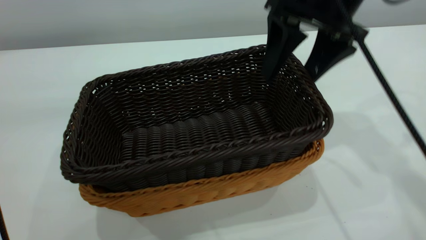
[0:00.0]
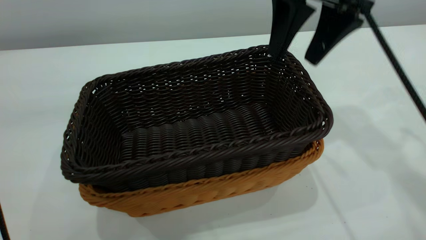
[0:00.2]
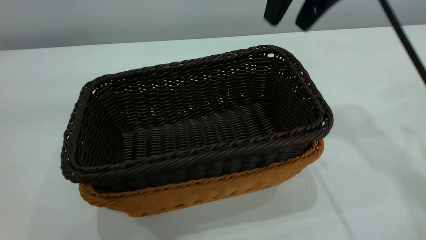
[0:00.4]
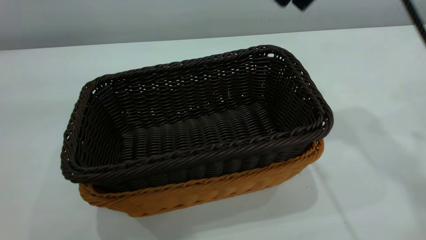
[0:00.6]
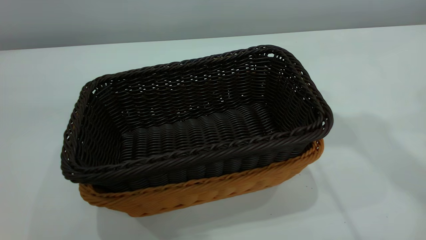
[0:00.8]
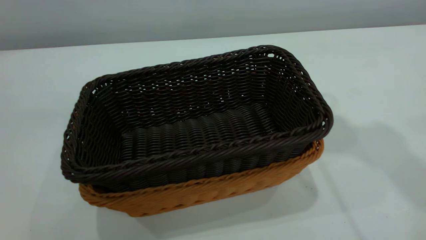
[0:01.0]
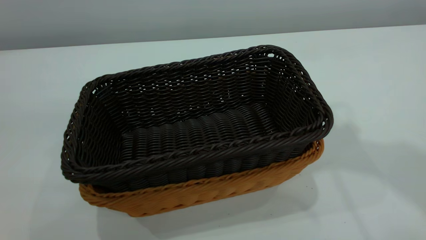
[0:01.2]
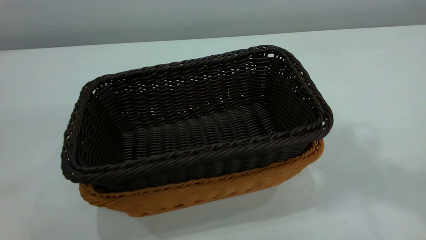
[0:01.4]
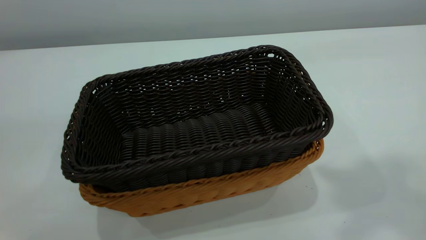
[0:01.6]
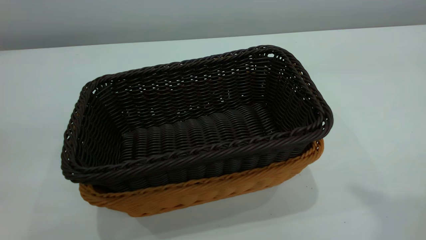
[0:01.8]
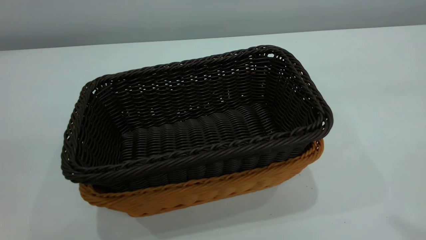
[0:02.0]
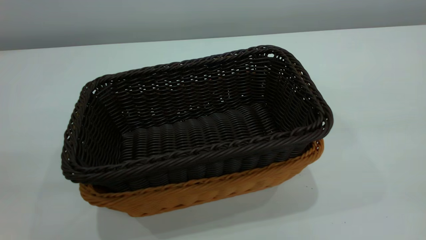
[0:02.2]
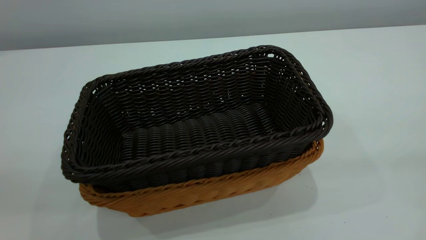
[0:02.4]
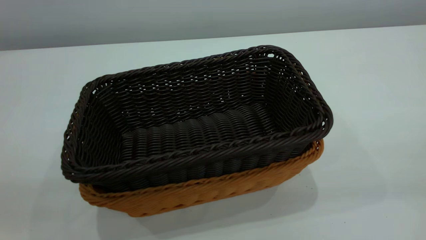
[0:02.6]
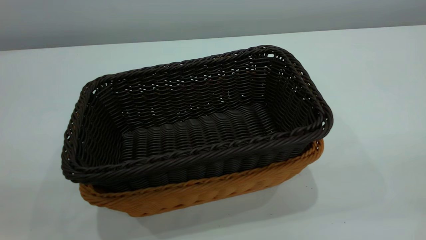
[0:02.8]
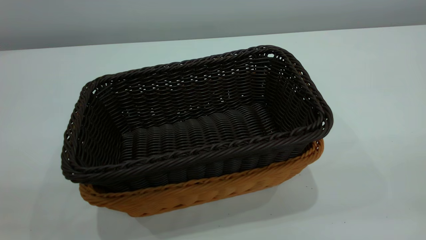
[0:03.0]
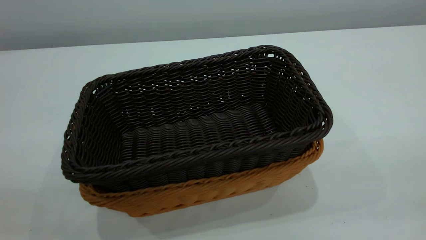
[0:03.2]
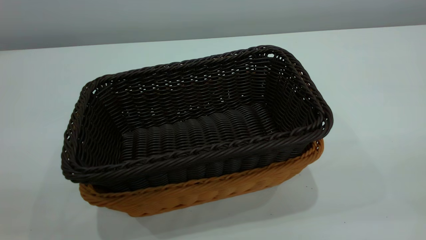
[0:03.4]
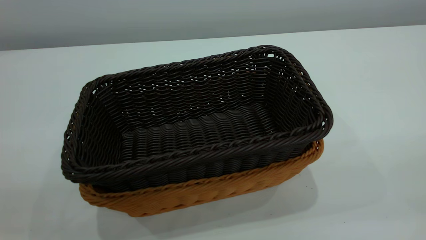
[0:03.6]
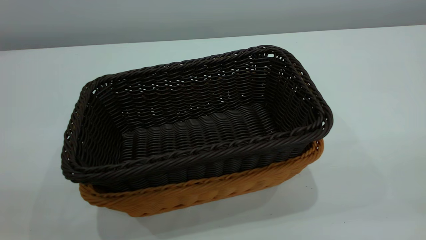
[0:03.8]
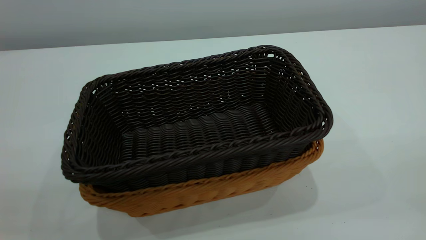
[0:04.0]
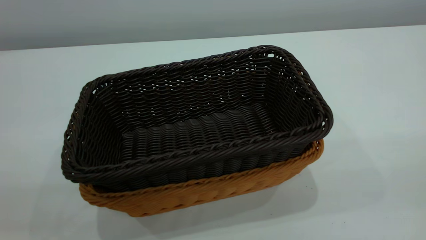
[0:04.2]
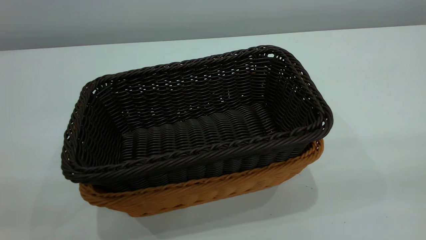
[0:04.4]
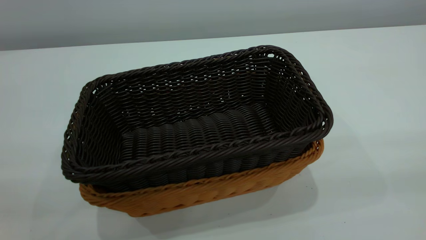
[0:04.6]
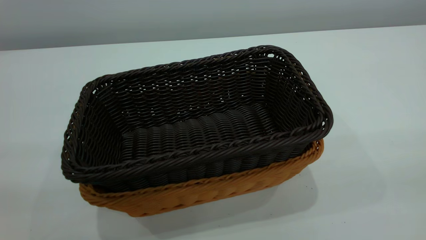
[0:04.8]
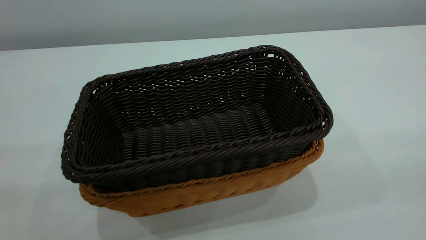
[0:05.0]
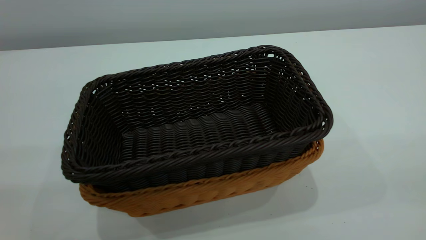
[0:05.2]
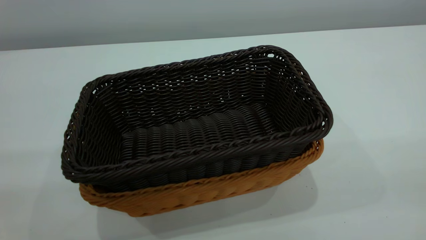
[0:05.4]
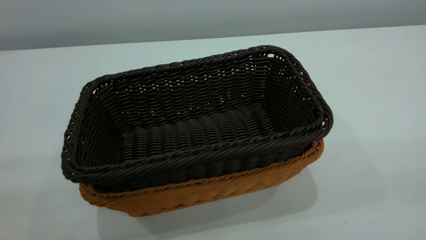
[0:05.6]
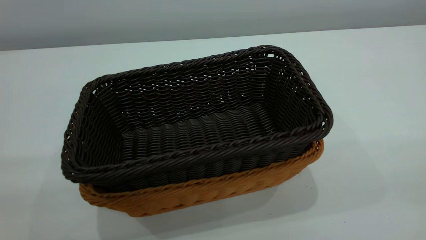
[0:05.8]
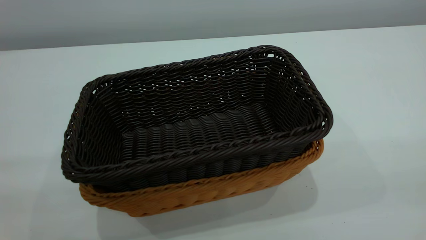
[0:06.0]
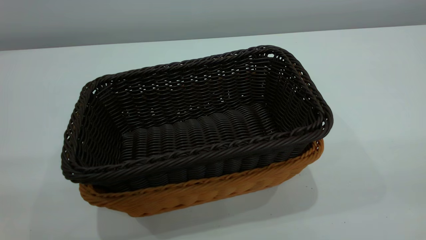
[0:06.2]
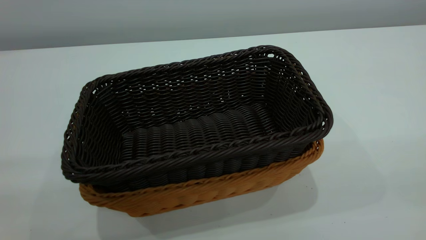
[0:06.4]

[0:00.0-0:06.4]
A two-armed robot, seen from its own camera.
Task of the whole recording: the left gripper grasp the brown basket and place it in the center of the table, the right gripper grasp the black basket and place it inside the brown one.
0:00.0 to 0:01.6: The right gripper is displaced upward and backward by approximately 30 cm, and closes its fingers. The left gripper travels to the left and backward by approximately 15 cm, and closes.

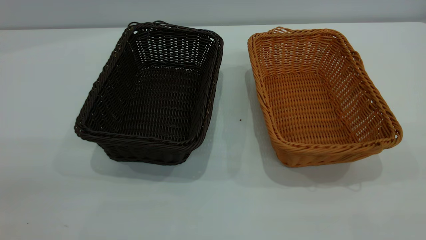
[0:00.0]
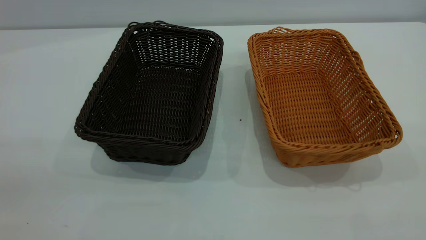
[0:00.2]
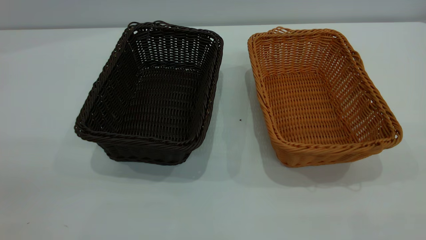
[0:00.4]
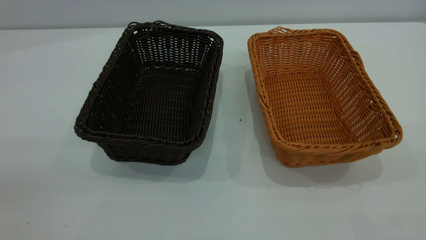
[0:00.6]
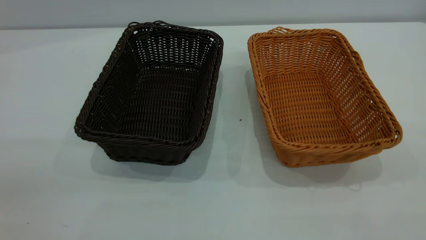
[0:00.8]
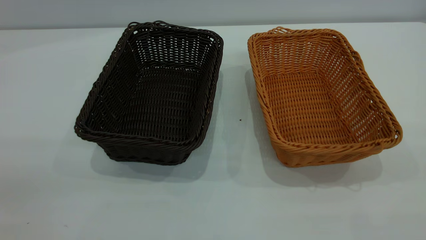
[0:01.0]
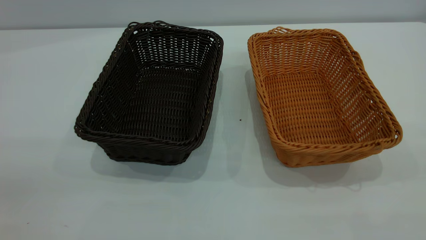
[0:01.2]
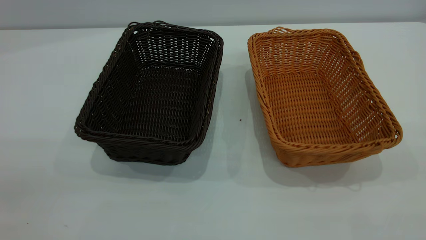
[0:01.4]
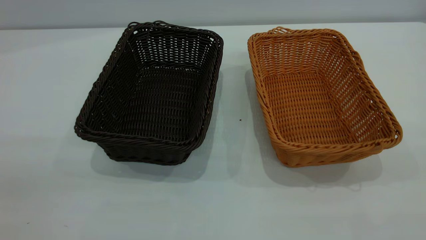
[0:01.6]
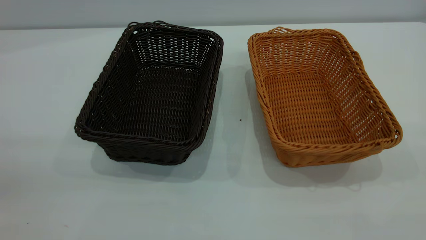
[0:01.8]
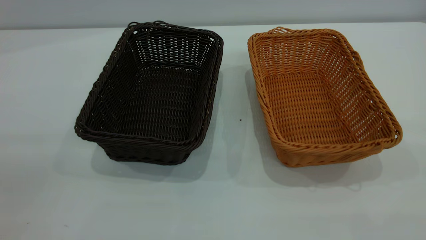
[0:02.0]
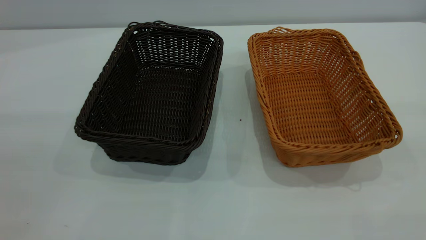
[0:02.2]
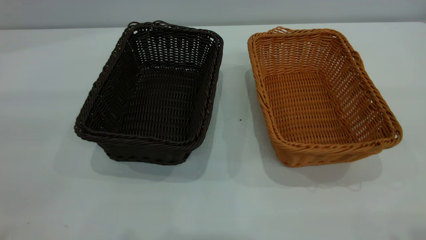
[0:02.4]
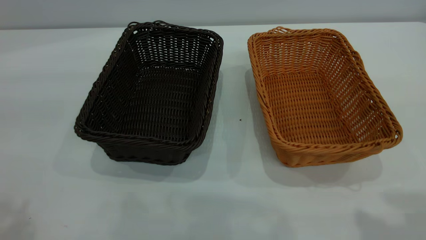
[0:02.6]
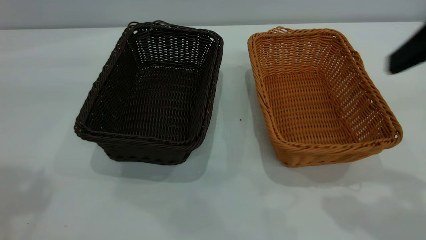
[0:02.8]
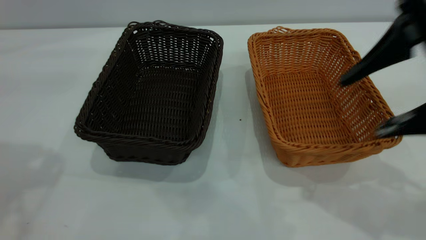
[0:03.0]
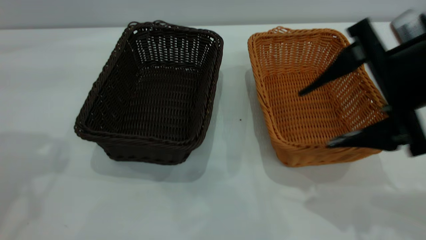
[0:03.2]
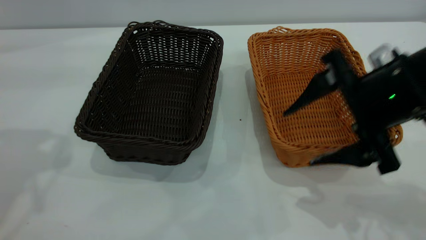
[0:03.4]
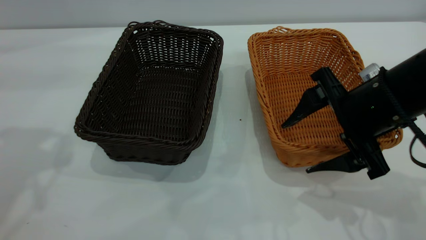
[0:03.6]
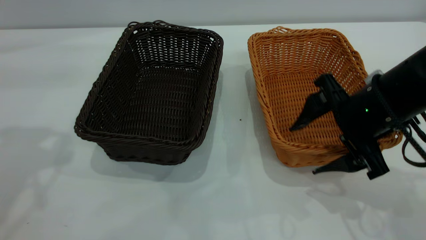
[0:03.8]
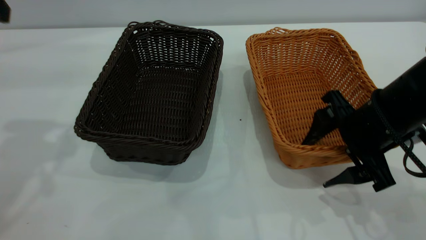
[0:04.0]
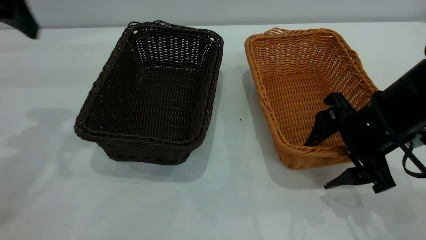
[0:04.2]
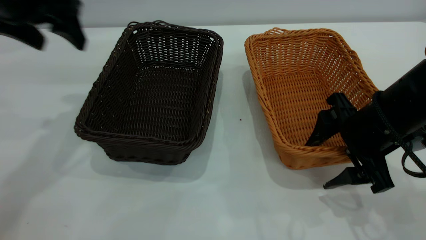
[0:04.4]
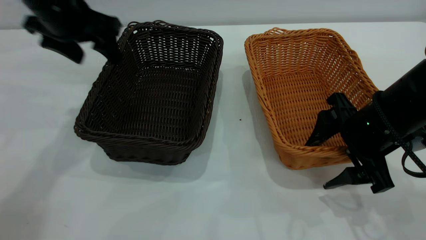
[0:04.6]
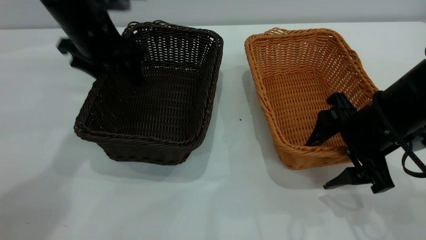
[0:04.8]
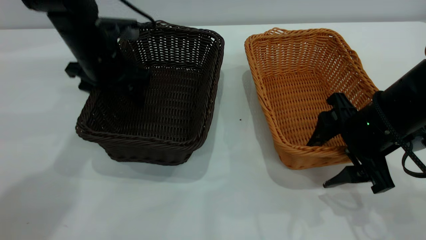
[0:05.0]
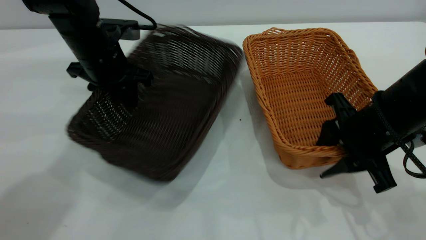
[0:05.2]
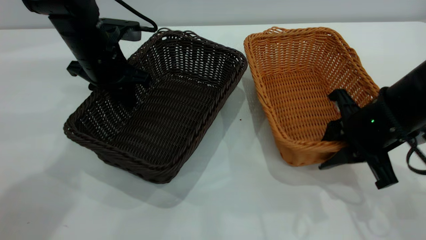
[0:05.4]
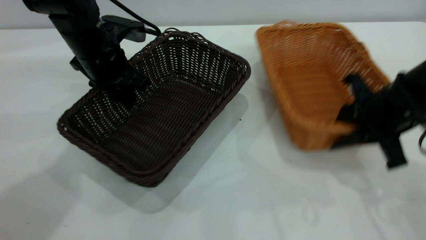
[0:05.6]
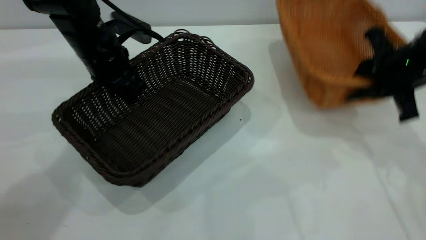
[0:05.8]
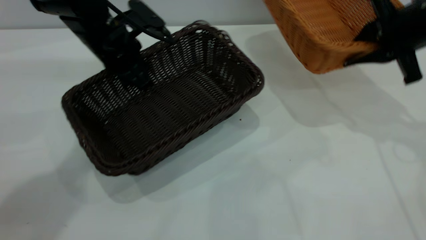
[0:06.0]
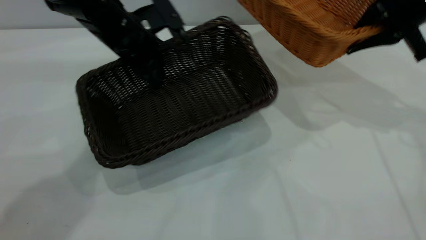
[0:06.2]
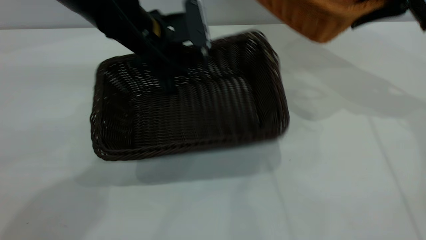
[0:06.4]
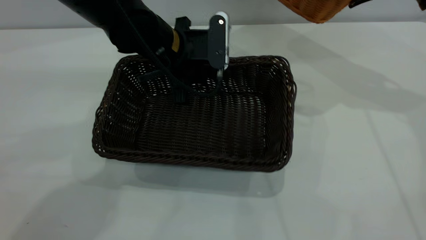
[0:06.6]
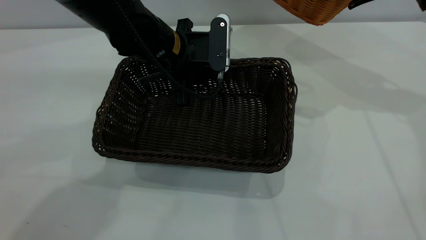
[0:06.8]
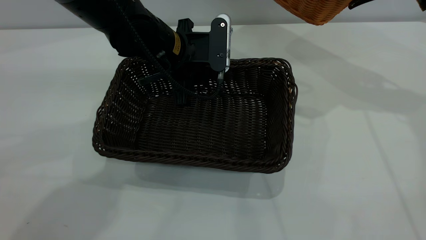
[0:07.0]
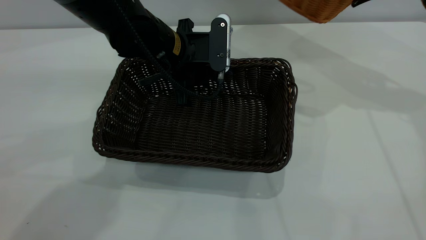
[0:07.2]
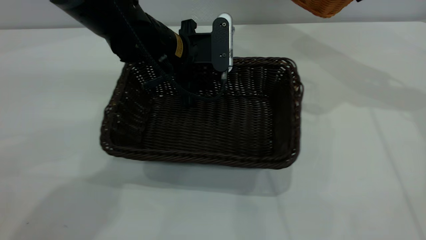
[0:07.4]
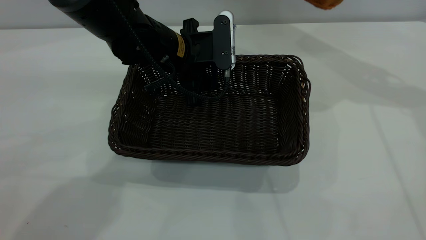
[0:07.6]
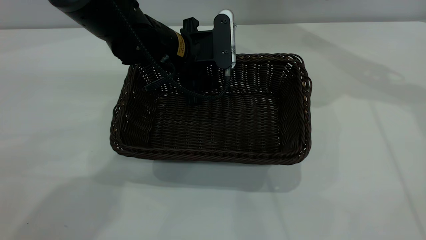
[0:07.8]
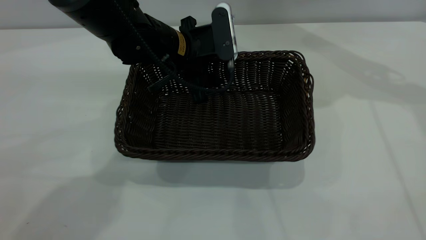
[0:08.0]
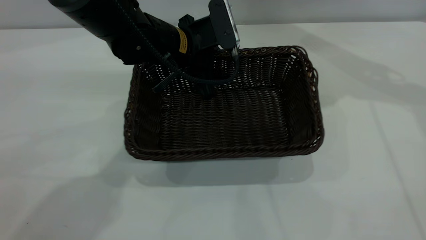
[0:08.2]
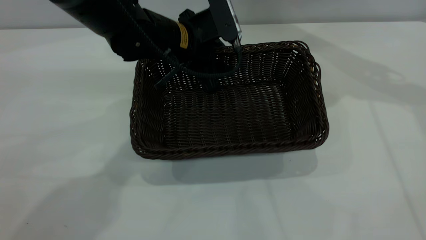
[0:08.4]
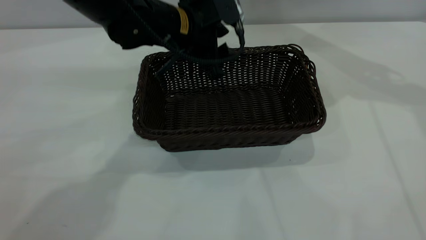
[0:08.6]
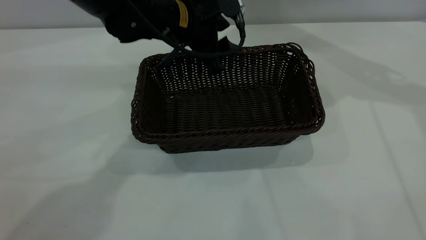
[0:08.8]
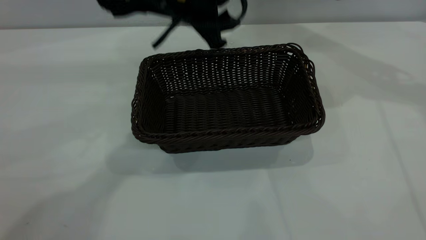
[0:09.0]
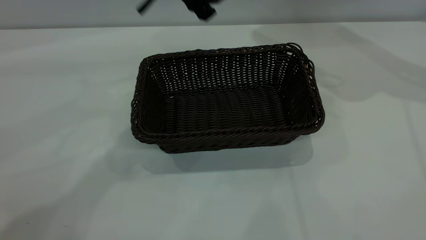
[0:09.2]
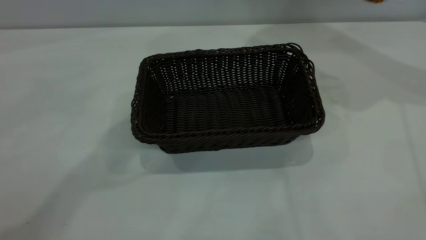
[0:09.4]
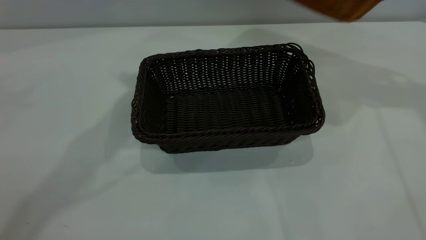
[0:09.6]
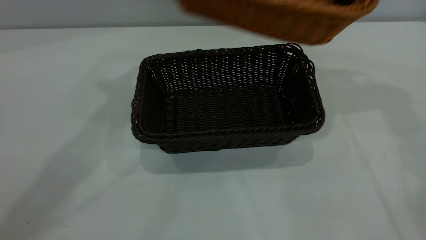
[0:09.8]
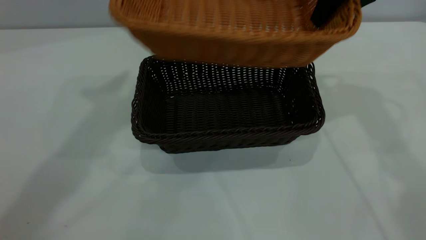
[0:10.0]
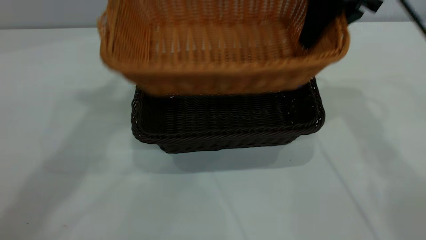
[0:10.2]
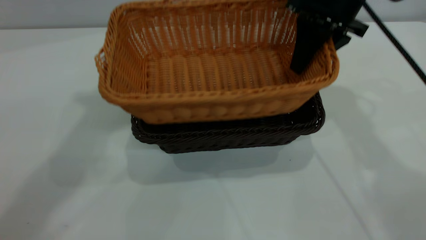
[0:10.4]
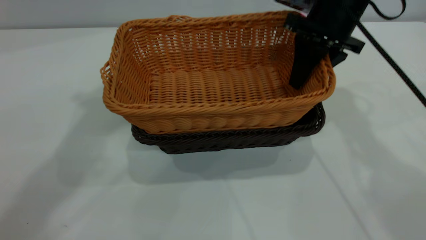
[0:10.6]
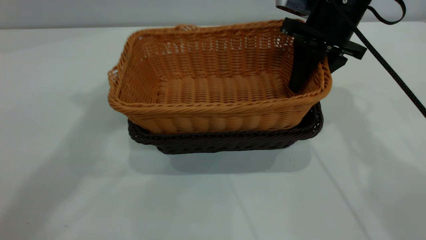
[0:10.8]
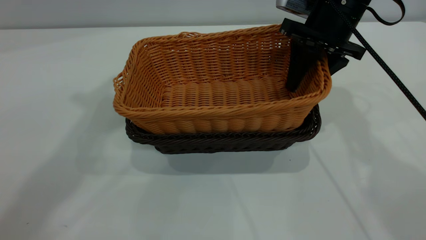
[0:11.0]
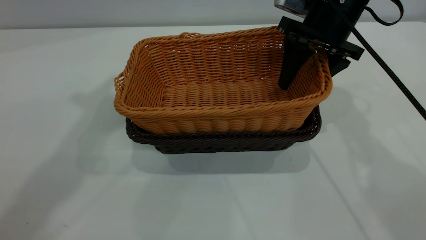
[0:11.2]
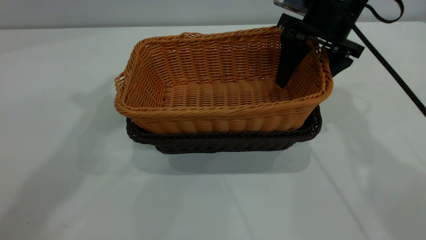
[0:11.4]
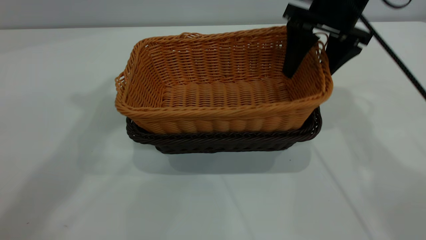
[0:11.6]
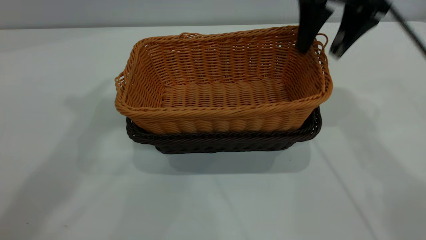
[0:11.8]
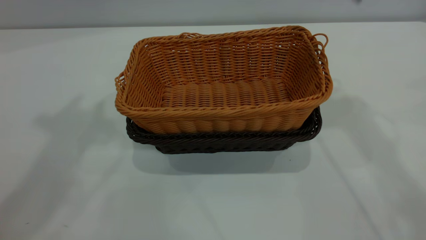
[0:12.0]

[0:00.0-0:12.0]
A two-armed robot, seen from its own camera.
Task of the whole recording: the left gripper grasp the black basket and place it in the center of the table, the right gripper grasp the brown basket and place it inside the black one.
Step, 0:00.0 to 0:05.6: Pick up the light basket with the right gripper.
Step, 0:05.8 to 0:09.0: Move the dark basket to the center of view.
Step, 0:09.2 to 0:11.8: Place the light basket on the dark basket.
0:00.0 to 0:01.6: Both grippers stay about where they are.
0:01.6 to 0:03.0: The right gripper is displaced forward and downward by roughly 25 cm.
0:03.0 to 0:04.4: The right gripper shifts about 15 cm downward. Meanwhile the left gripper goes about 15 cm forward, downward and to the right.
0:04.4 to 0:06.0: The left gripper goes roughly 15 cm downward, to the right and forward, and closes; the right gripper moves forward, upward and to the right, some 15 cm, and closes up.
0:06.0 to 0:07.6: The left gripper heads to the right, covering roughly 10 cm, and opens its fingers. The right gripper travels upward and forward by some 10 cm.
0:07.6 to 0:09.0: The left gripper travels upward by roughly 10 cm.
0:09.0 to 0:10.4: The right gripper moves to the left and downward, about 20 cm, while the left gripper travels upward and to the left by roughly 30 cm.
0:10.4 to 0:12.0: The right gripper is displaced upward by roughly 15 cm, and opens. The left gripper ends up approximately 5 cm from where it was.
